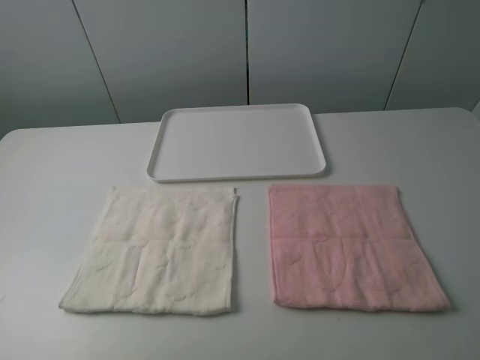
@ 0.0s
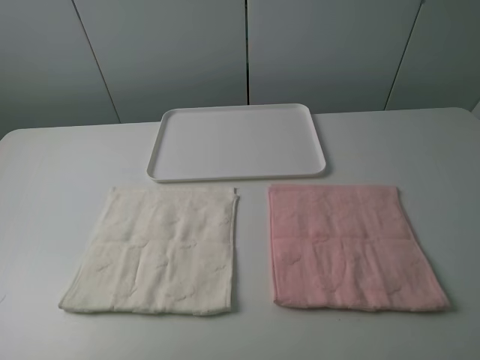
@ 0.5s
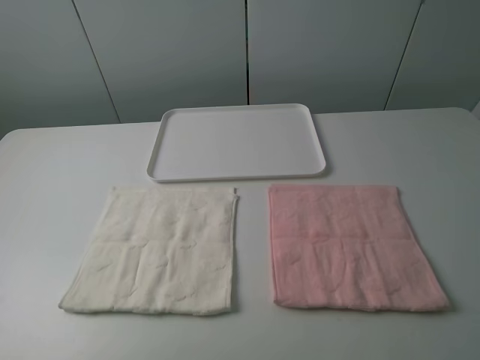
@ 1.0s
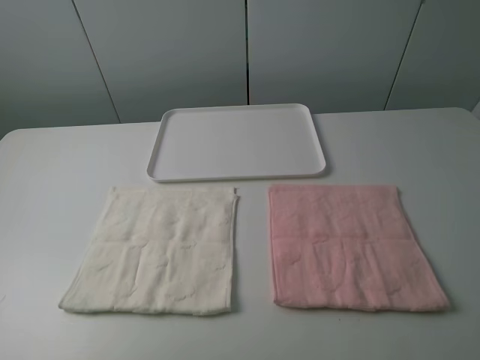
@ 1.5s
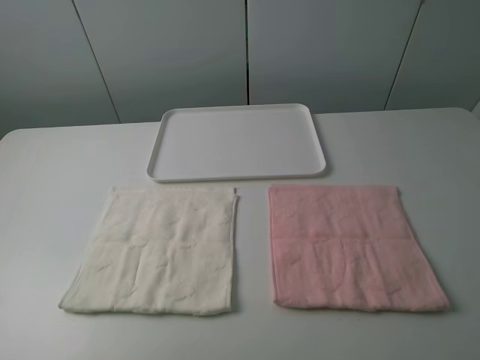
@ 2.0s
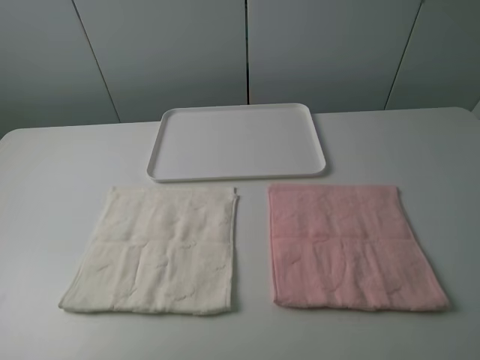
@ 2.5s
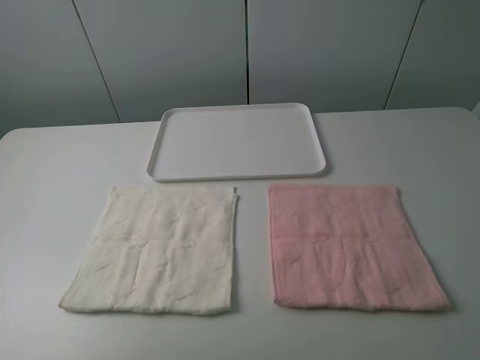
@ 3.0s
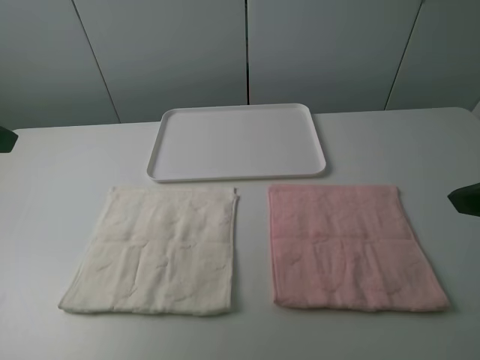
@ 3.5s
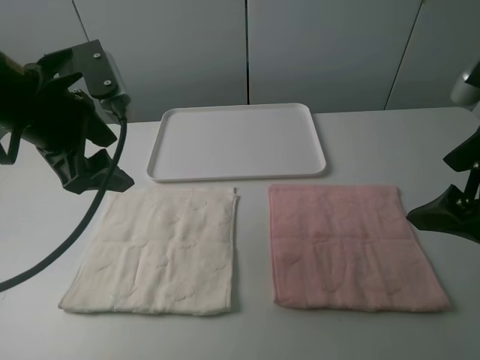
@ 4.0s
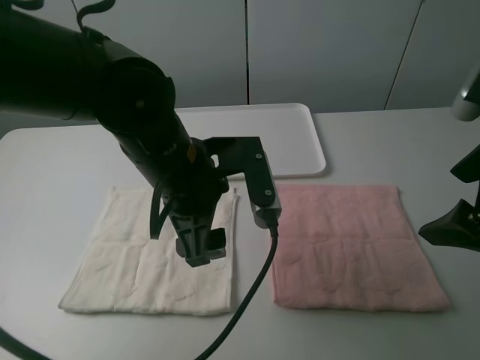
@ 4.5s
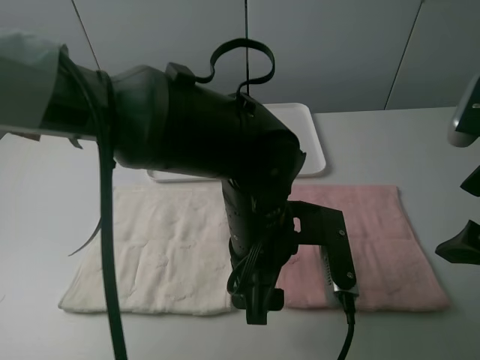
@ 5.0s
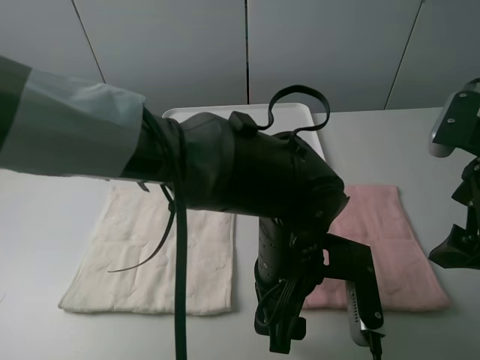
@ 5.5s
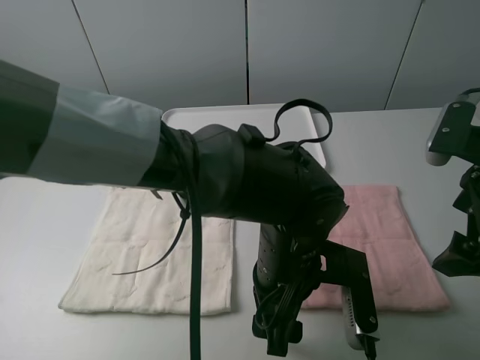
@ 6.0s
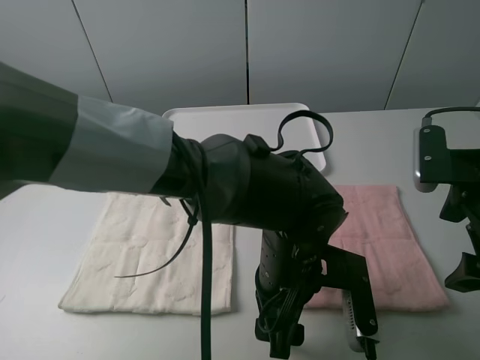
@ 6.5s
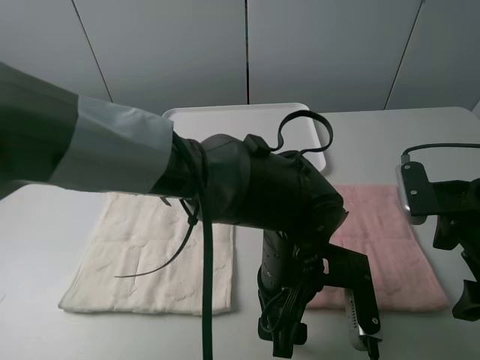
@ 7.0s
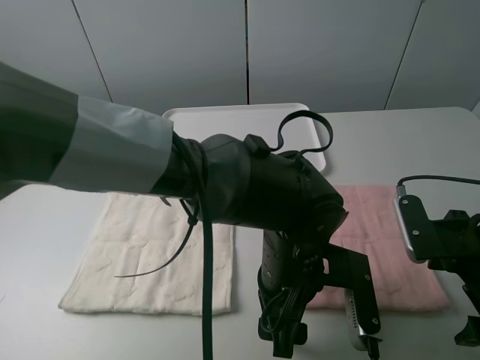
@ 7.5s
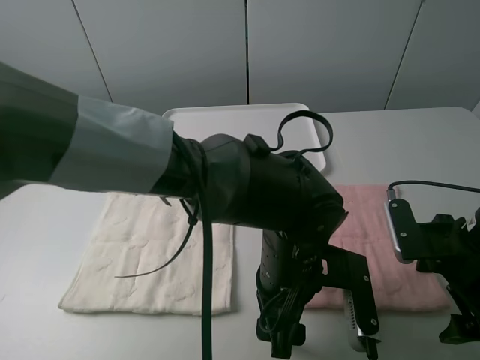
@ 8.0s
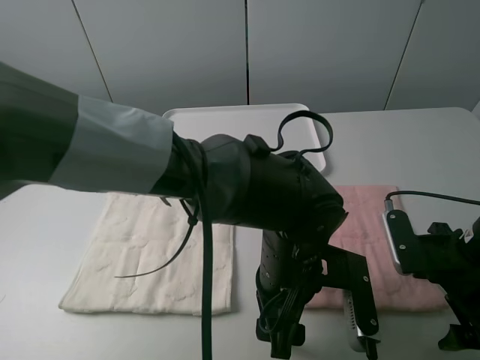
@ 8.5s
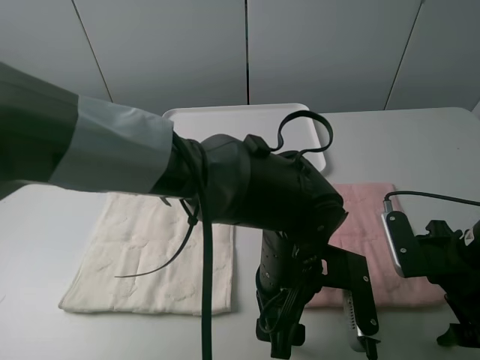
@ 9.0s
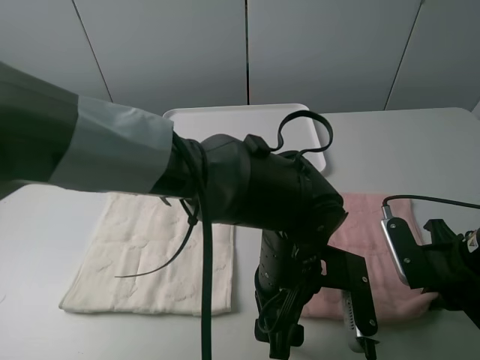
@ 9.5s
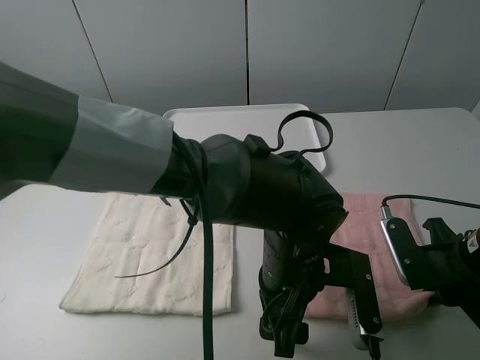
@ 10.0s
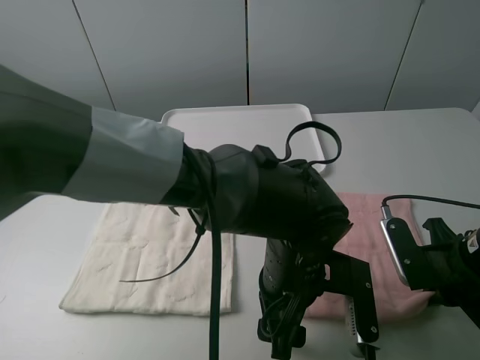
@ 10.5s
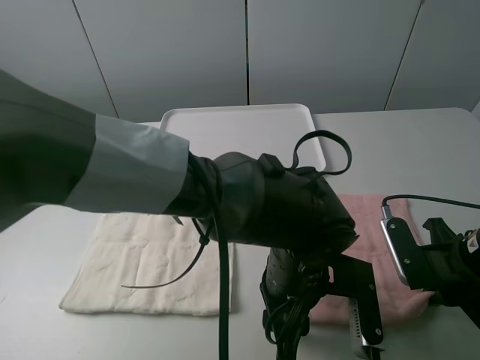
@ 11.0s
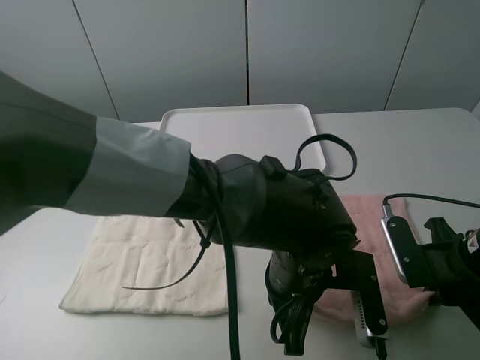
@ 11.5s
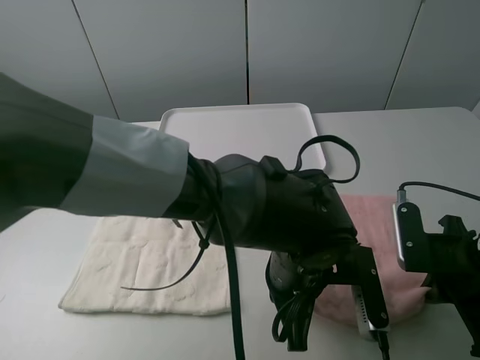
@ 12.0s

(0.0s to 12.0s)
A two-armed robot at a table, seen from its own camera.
Task of the whole recording: fold one of the towels by two grippers and place it on the tray,then fold another towel by two grippers and place it on the folded towel.
Step, 0.0s - 11.0s: Grasp the pink towel with the left gripper.
0.0s - 2.0s: The two grippers keep their place.
2.0s - 4.0s: The right gripper travels forward by about 15 cm. The left gripper shifts some 30 cm forward and to the right.
4.0s - 6.0s: The left gripper goes approximately 30 cm to the right and downward.
6.0s - 8.0s: The right gripper is displaced downward by roughly 10 cm.
8.0s - 10.0s: The right gripper closes its fingers.
10.0s - 12.0s: The left gripper closes its fingers.

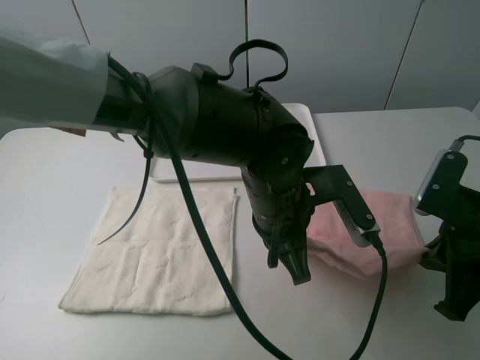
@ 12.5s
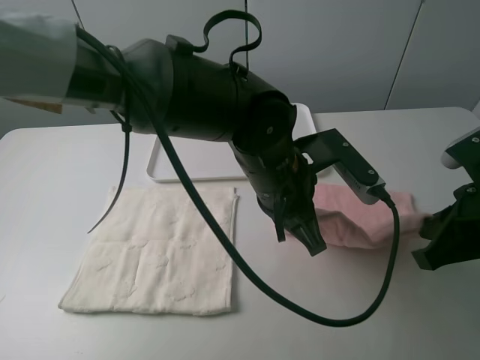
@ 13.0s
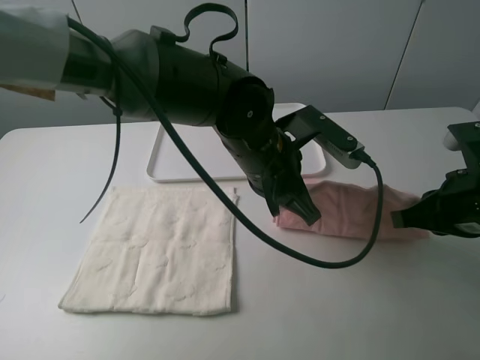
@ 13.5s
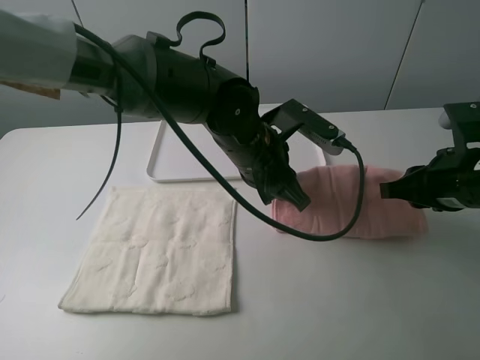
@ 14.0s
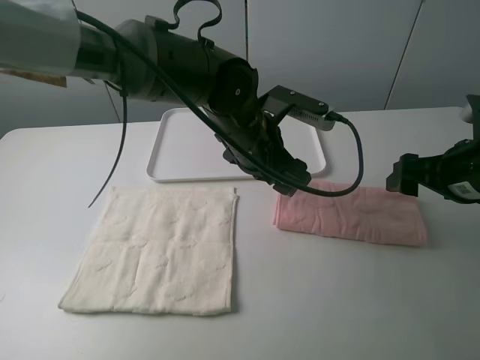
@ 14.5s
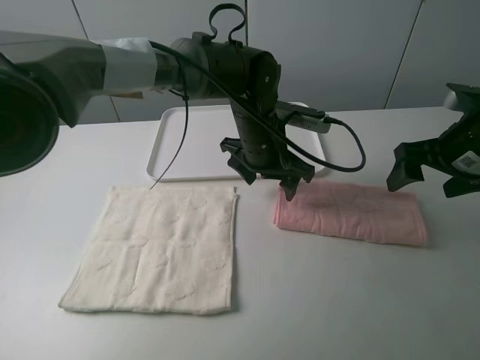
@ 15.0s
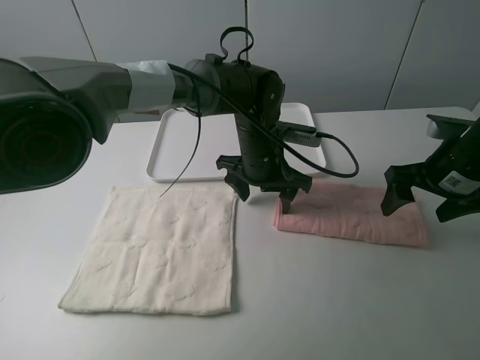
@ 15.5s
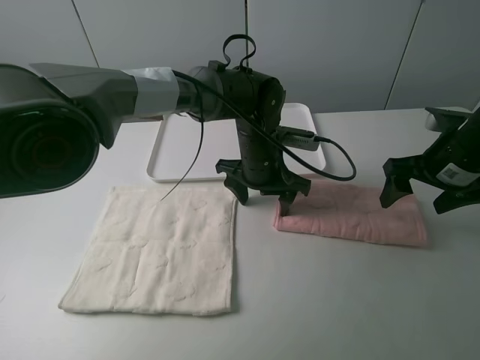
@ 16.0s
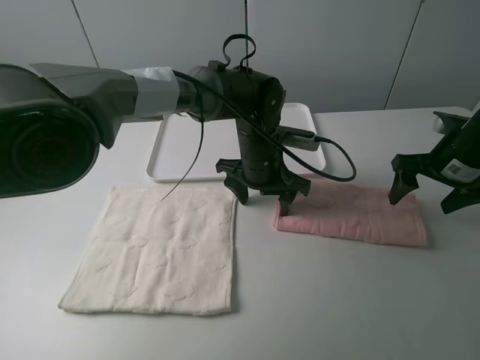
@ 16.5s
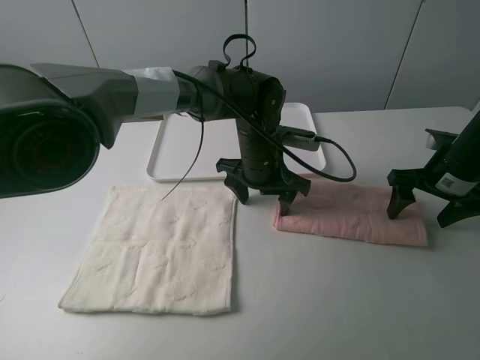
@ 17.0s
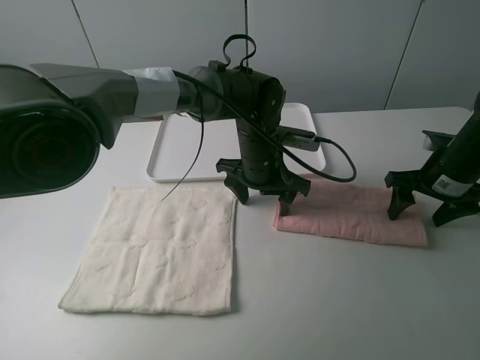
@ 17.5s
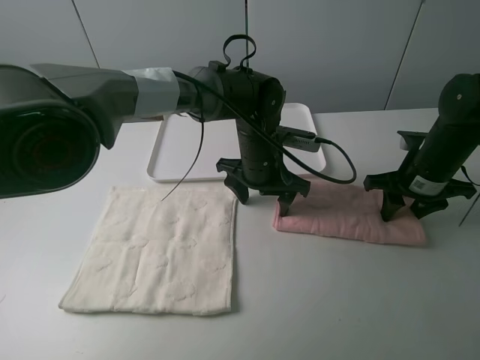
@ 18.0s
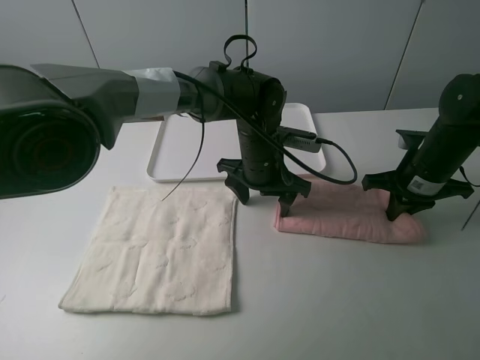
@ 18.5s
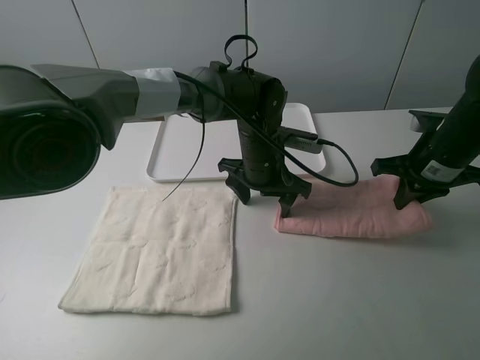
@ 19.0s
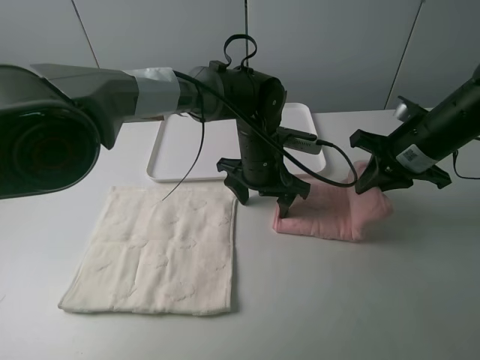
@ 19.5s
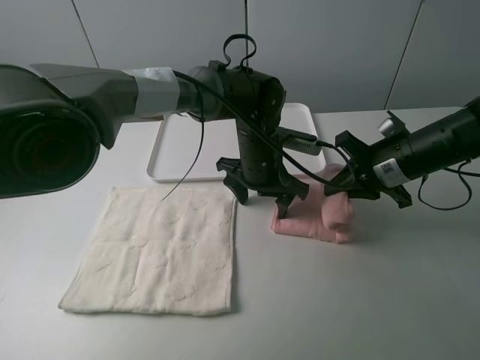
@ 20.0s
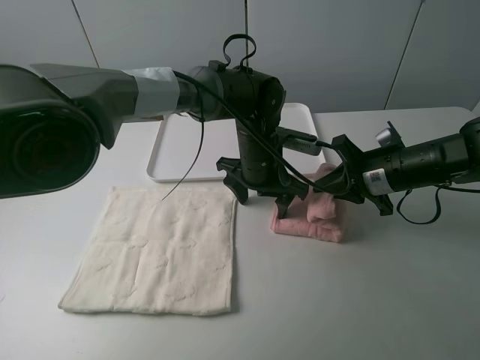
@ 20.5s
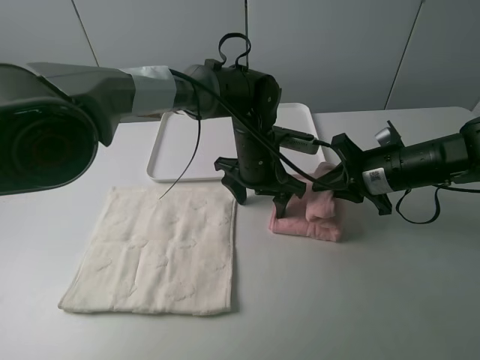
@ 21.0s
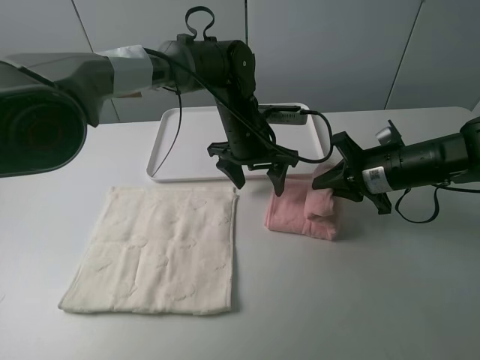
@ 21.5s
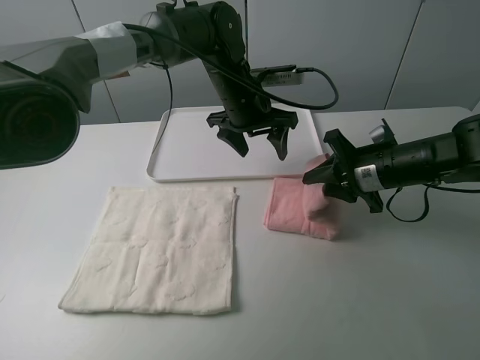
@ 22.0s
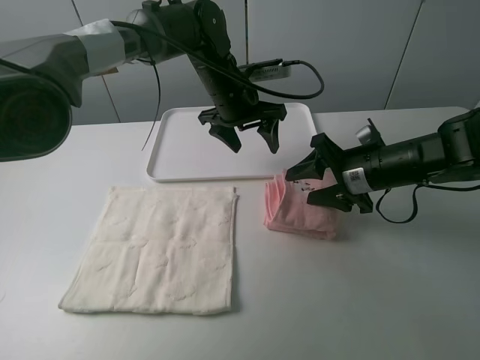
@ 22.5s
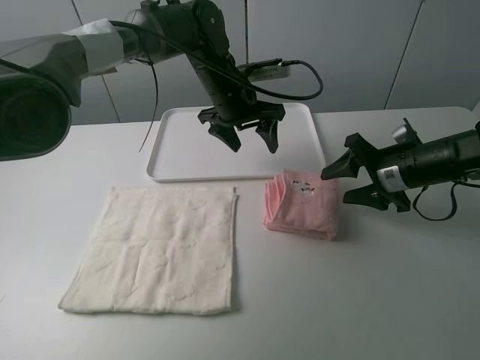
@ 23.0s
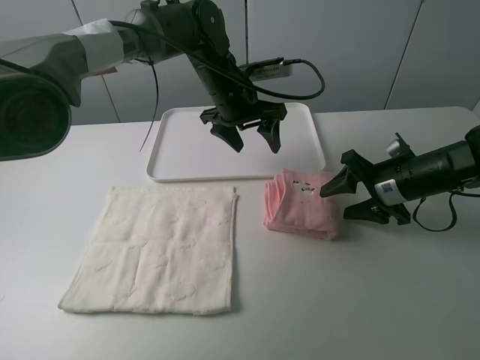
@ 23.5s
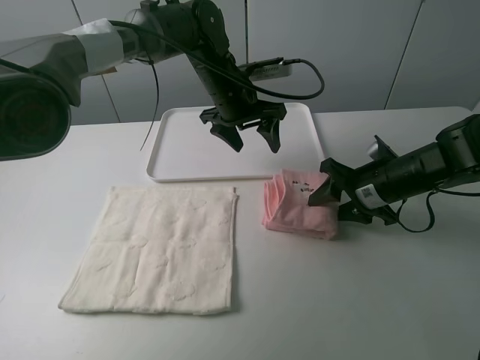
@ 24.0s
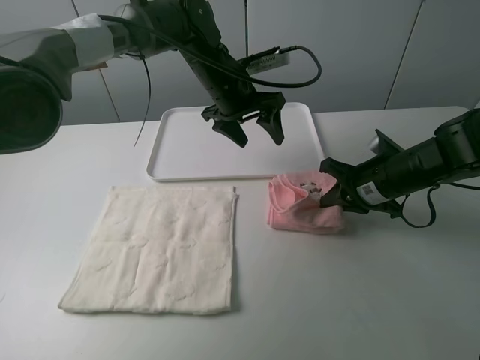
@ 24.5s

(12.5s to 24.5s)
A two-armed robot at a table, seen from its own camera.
Task of the whole recording: fold one of the towels by two grippers and place it on the tray,then fold another towel by two grippers and place it on the folded towel.
Step, 12.5s - 14.0s: Fold the pink towel upwards with the left gripper.
Step, 15.0s - 15.5s: Press the pink towel with the left gripper.
Step, 16.0s - 18.0s: Grasp the pink towel with the right gripper.
Step, 18.5s - 22.5s: Fold the pink towel from right to left with right gripper.
Step, 23.0s - 24.0s: Grasp the pink towel with the right gripper.
12.5s - 14.5s: The grippers both shift forward by some 10 cm. The right gripper opens. Meanwhile the left gripper opens.
14.5s - 16.5s: The left gripper shifts approximately 5 cm downward, while the right gripper heads forward, covering approximately 10 cm.
16.5s - 18.5s: The right gripper closes up.
18.5s - 20.5s: The right gripper is displaced to the left by approximately 5 cm.
20.5s - 22.5s: The right gripper opens its fingers; the left gripper heads forward and upward, covering some 10 cm.
22.5s - 24.5s: The right gripper closes its fingers.

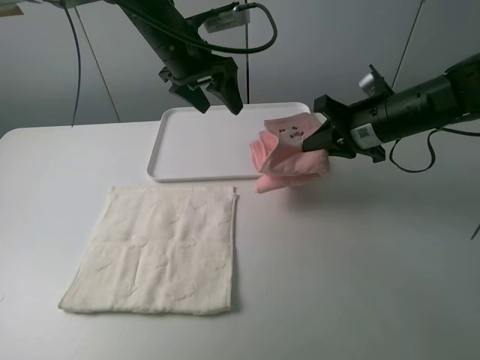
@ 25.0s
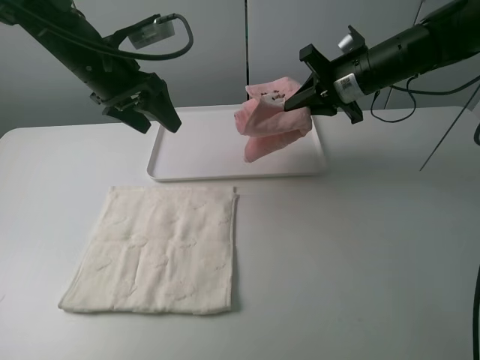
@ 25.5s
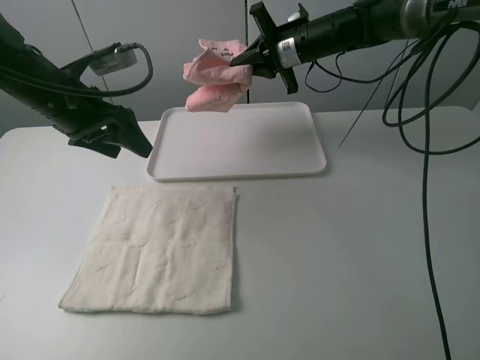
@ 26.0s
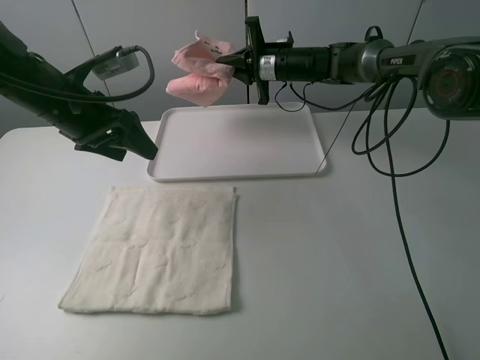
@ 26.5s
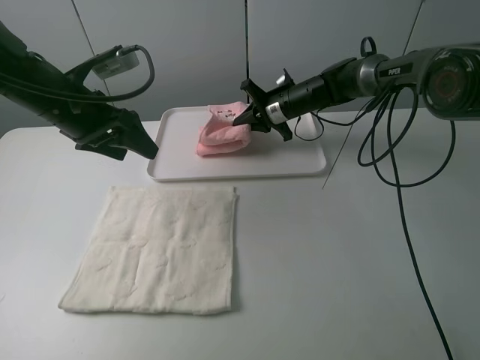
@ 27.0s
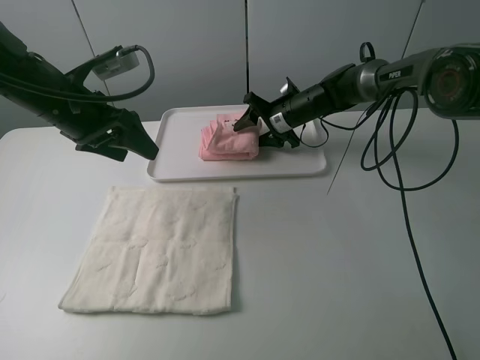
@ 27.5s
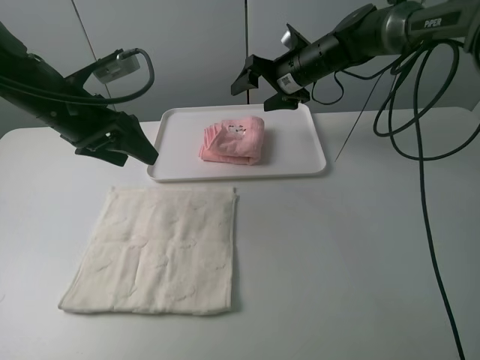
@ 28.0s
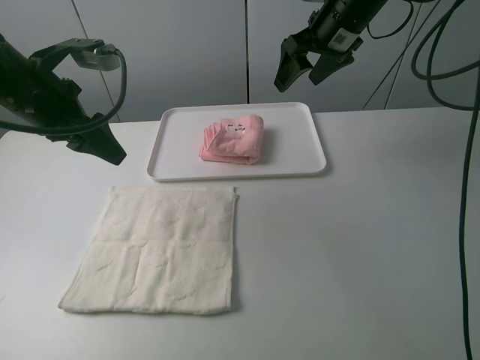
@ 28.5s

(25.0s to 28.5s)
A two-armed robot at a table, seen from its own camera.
Task of the whole recording: fold one of the towels by two grippers and place it on the tray,then fold another towel by two grippers and place it on the folded towel.
Step, 25.0s - 28.0s: Move the pink towel to the plate with the right gripper.
25.0s - 27.0s: The left gripper goes roughly 15 cm to the left and backward; the right gripper travels forward, to the left and downward by roughly 20 cm.
27.0s - 28.5s: The right gripper shifts roughly 20 cm upward, and opens its fingers.
